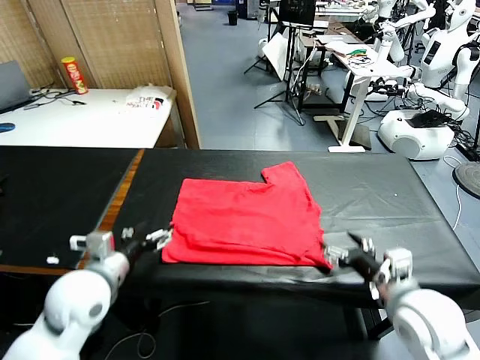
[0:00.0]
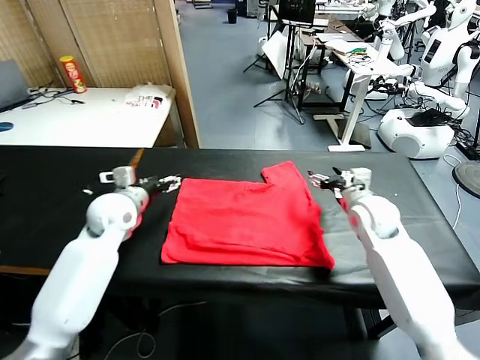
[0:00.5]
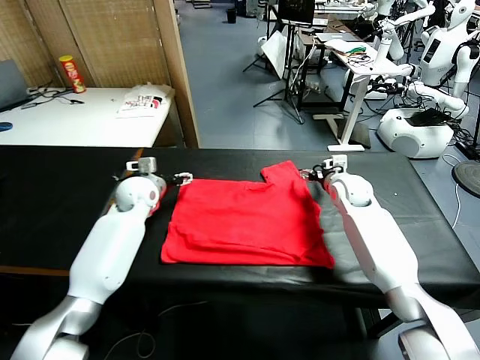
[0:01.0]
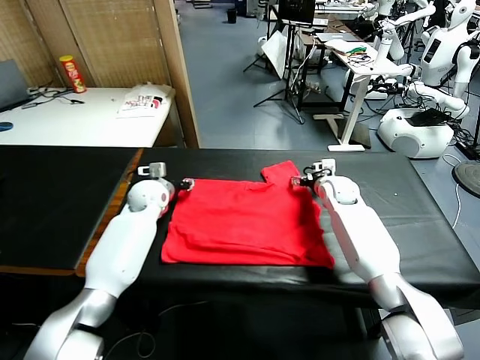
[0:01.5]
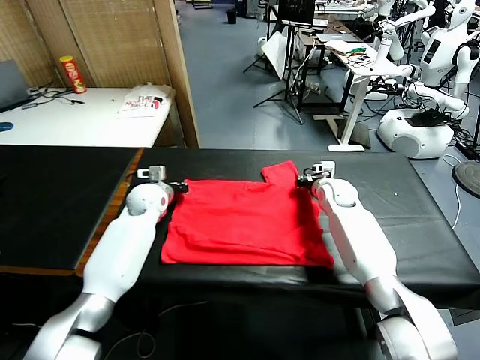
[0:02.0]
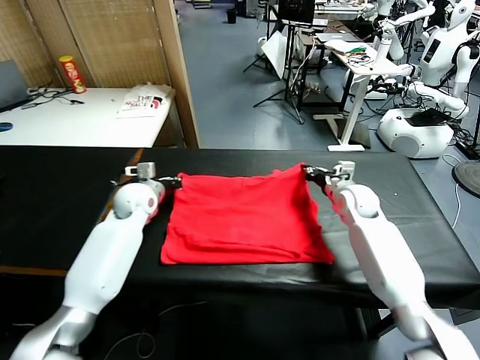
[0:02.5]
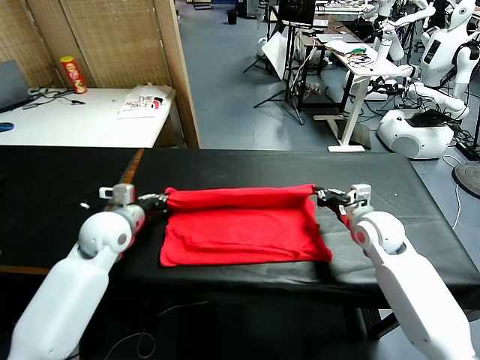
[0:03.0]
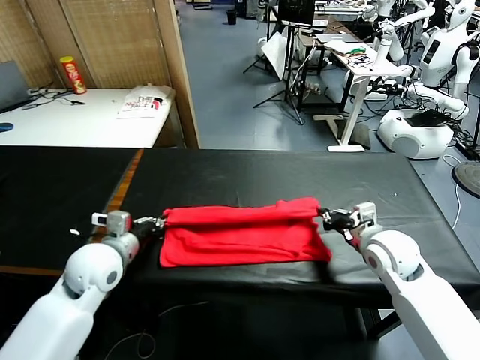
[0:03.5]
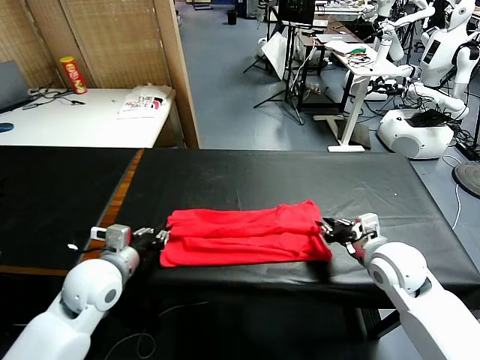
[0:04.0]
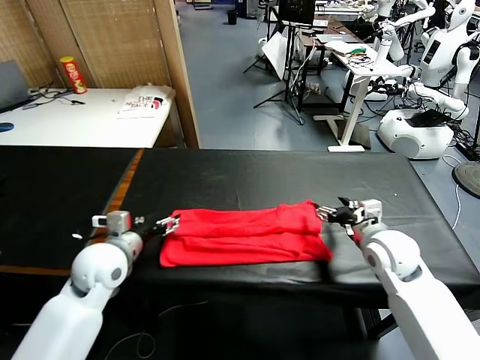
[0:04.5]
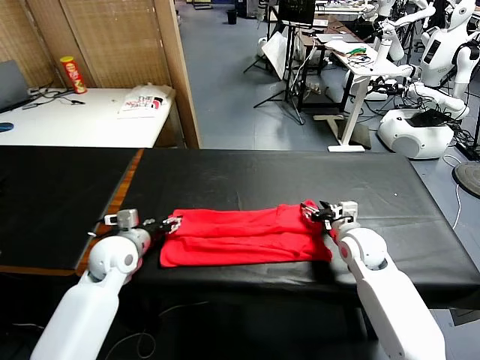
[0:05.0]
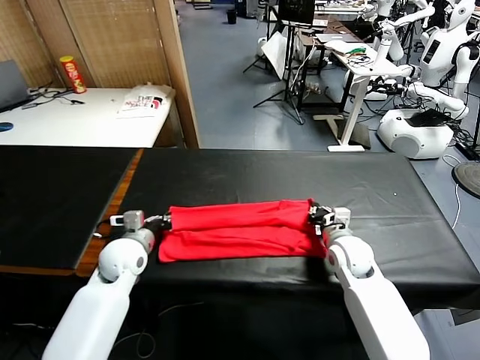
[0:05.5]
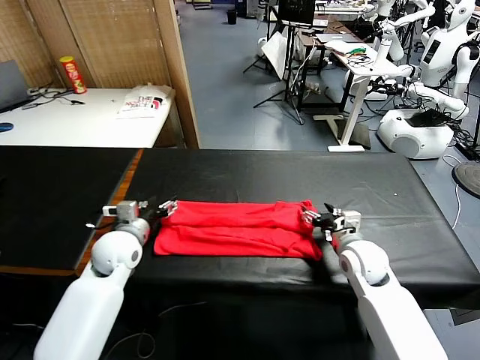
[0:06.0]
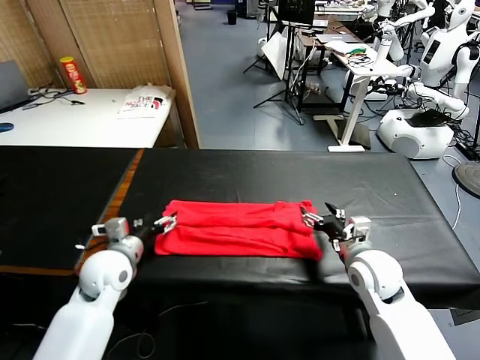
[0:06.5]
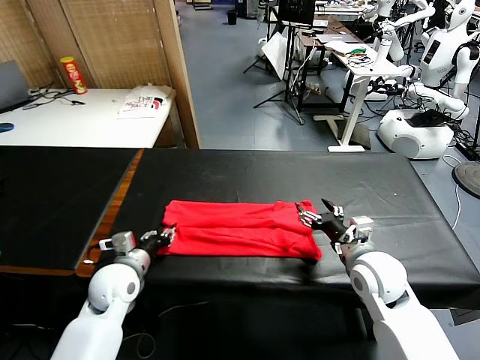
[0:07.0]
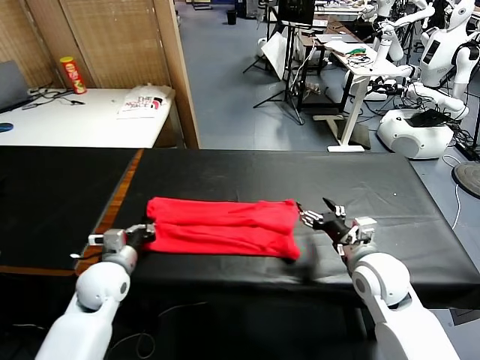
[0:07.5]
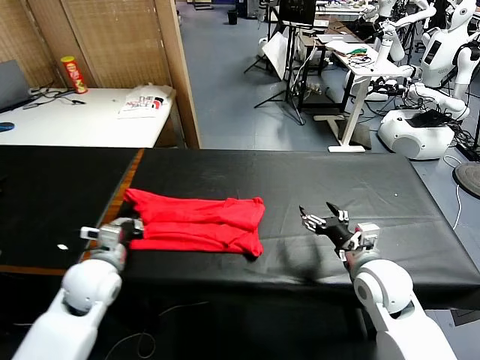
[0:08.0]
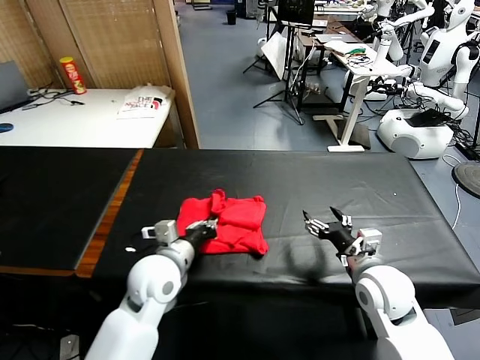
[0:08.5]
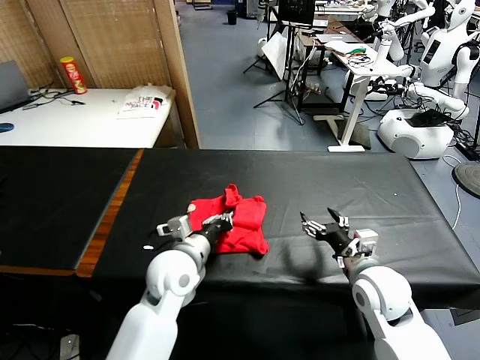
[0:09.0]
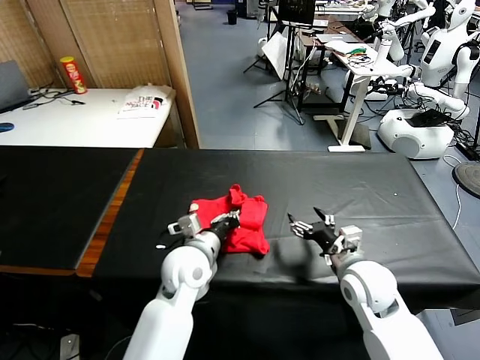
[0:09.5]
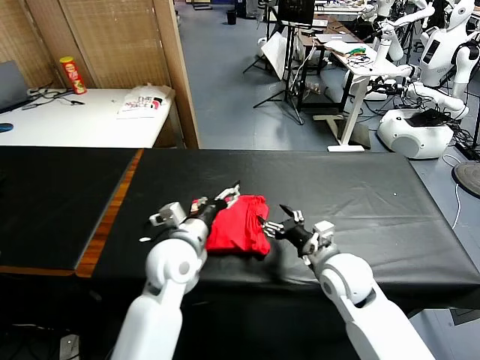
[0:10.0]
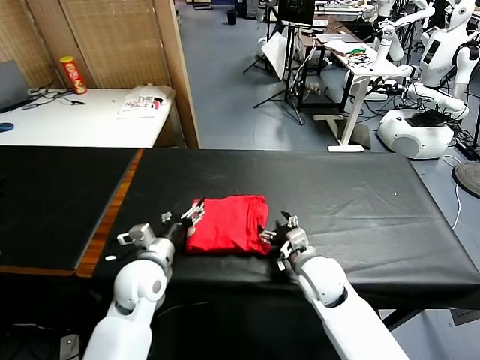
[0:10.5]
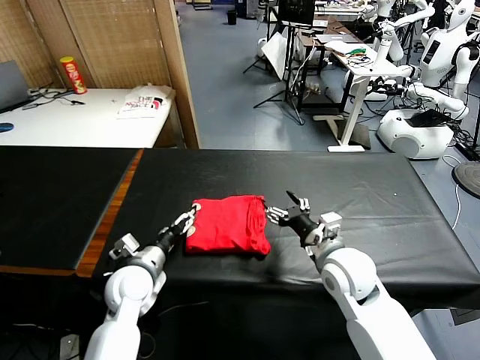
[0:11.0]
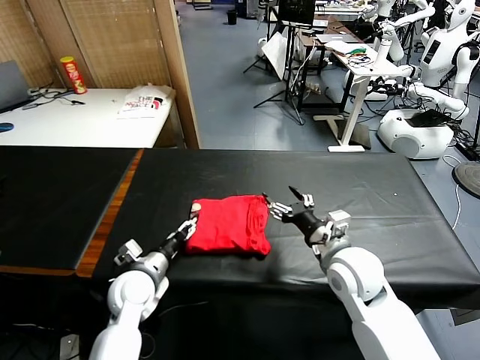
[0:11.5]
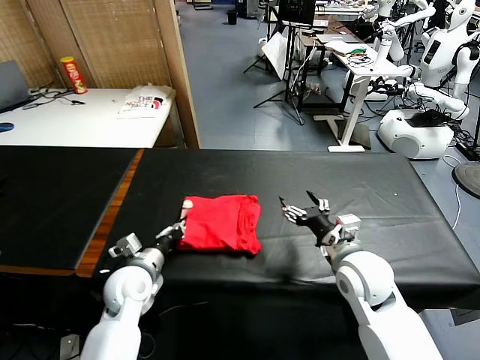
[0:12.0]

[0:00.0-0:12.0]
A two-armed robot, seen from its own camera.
Task of the whole recording: fold and organize the clothes.
Step, 0:00.0 to 0:02.0: use both grippers simultaneously to clamp the upper edge of the clothing fabric.
Step, 0:02.5 to 0:04.0: use both grippers to drag the upper edge of the fabric backward and fold it over the lower edge.
Step, 0:04.5 to 0:07.0: use the left gripper to clamp the left edge of the fabric.
Step, 0:07.5 to 0:09.5: use the left gripper to drag the left edge of the fabric to the left and folds it over the right edge.
0:00.0 to 0:02.0: Both grippers travel together forward, about 20 cm. The right gripper closes. Meanwhile the left gripper closes.
0:02.0 to 0:04.0: The grippers both shift backward by approximately 25 cm. The right gripper opens its fingers. Meanwhile the left gripper opens its fingers.
0:04.0 to 0:06.0: The left gripper travels forward by some 10 cm, and opens up. Meanwhile the right gripper moves downward, roughly 5 cm, and closes and opens again.
0:06.0 to 0:08.0: The two grippers go roughly 5 cm backward. The left gripper closes up.
0:08.0 to 0:10.0: The left gripper moves to the right, roughly 15 cm, and opens, while the right gripper heads to the left, covering some 5 cm.
0:10.0 to 0:12.0: The right gripper moves about 5 cm; the left gripper heads to the left and downward, covering roughly 15 cm, and closes.

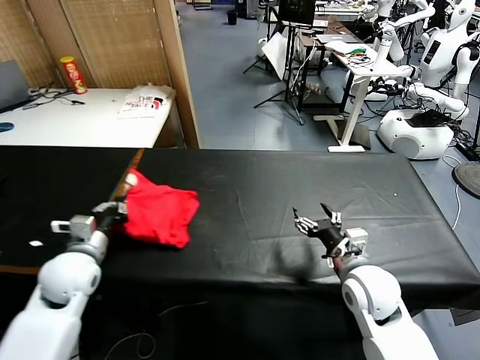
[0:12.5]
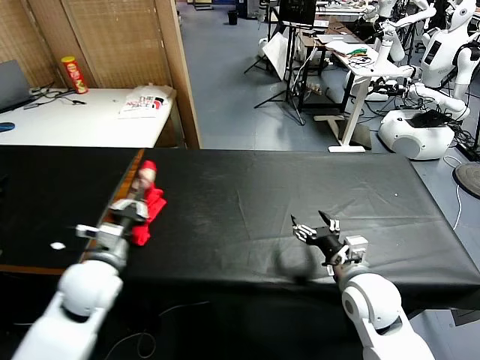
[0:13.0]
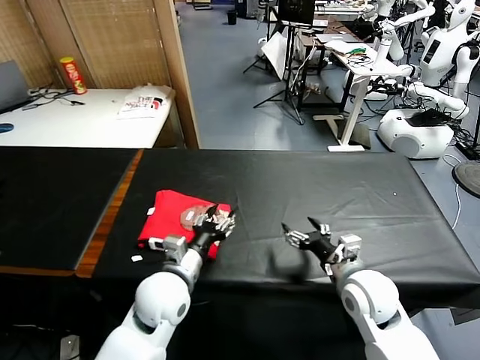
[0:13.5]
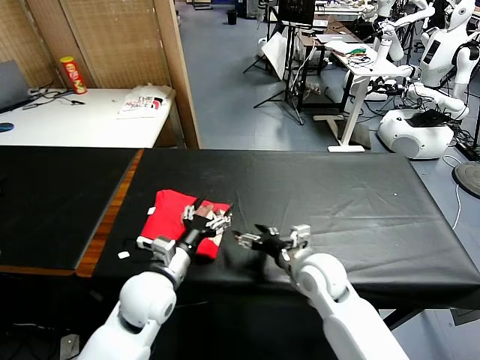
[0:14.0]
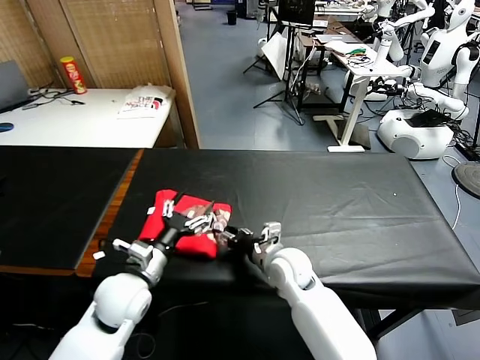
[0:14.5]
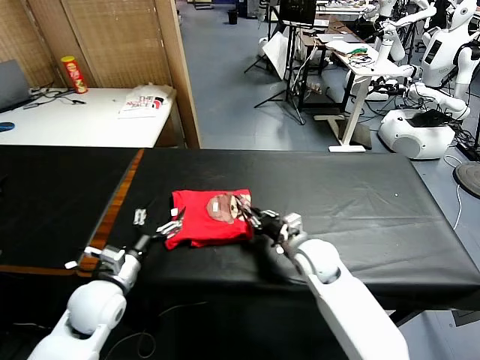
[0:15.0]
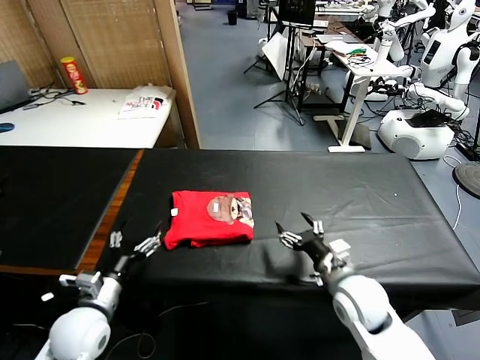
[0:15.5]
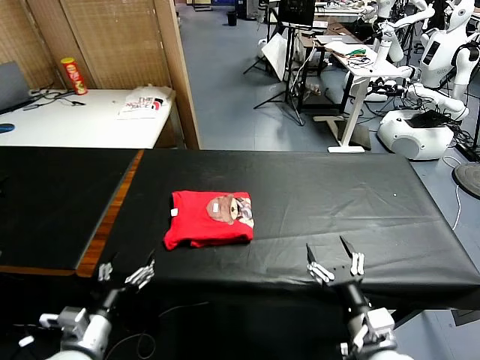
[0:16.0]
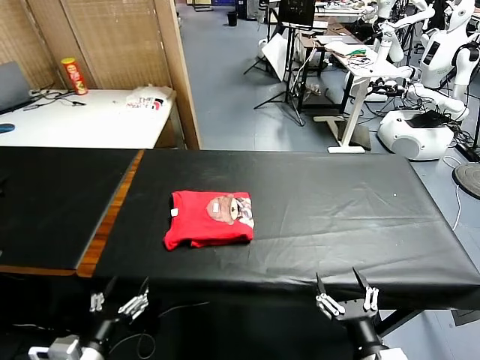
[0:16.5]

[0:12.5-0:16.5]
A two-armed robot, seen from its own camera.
Task of the whole recording: fold and organize the clothes.
Step, 0:14.0 to 0:15.0: Drag the clothes to the center of the table.
0:12.5 to 0:14.5: The left gripper travels to the right by about 10 cm, and opens. Meanwhile the right gripper heads to the left, forward and downward, covering roughly 15 cm.
0:14.5 to 0:16.5: The left gripper moves backward, about 20 cm; the right gripper shifts some 30 cm backward and to the right, and closes, then opens again.
